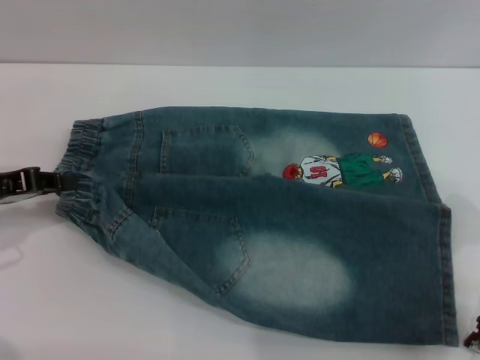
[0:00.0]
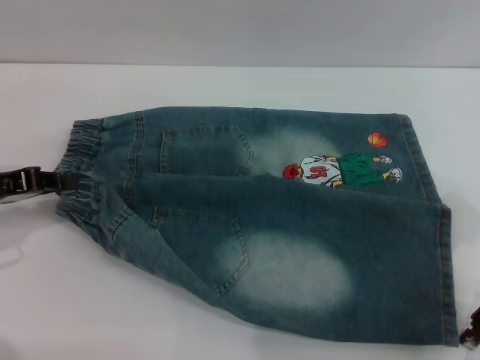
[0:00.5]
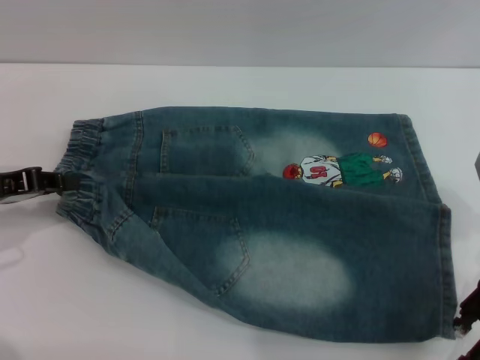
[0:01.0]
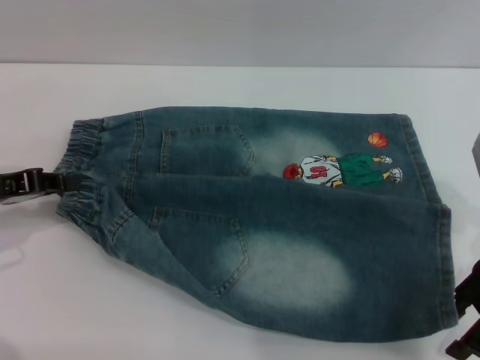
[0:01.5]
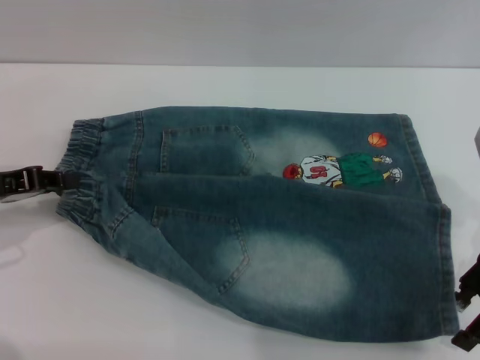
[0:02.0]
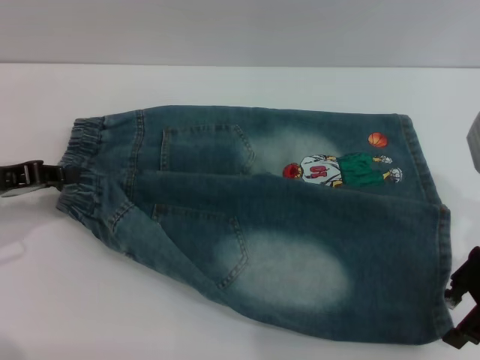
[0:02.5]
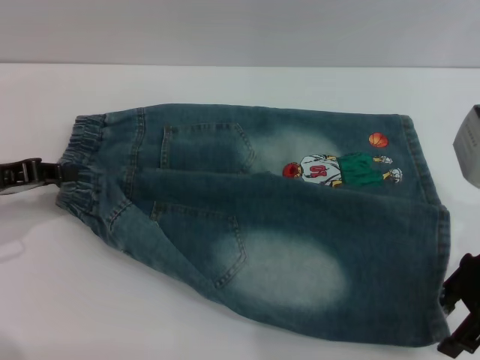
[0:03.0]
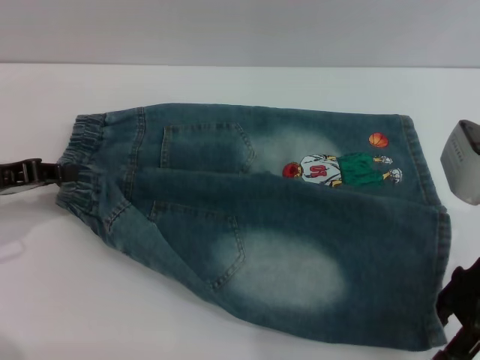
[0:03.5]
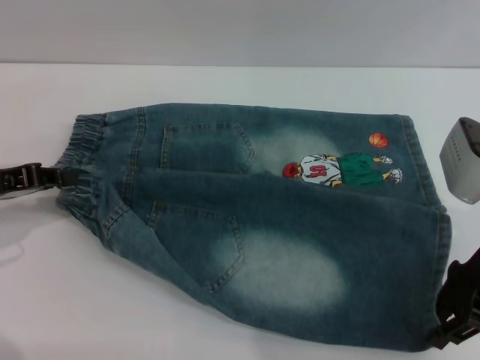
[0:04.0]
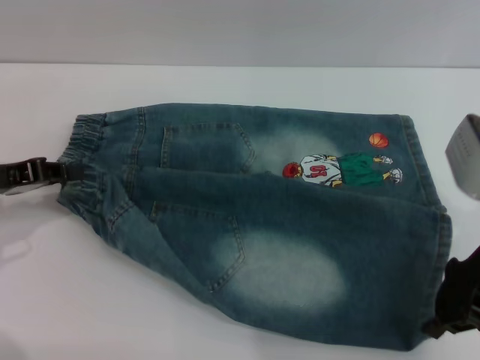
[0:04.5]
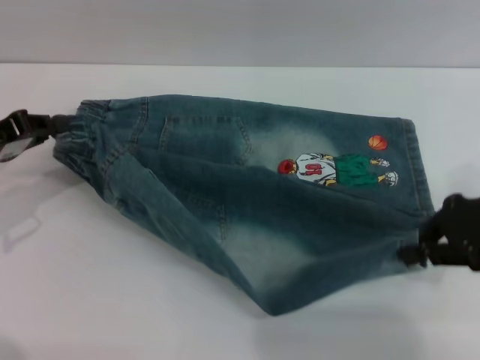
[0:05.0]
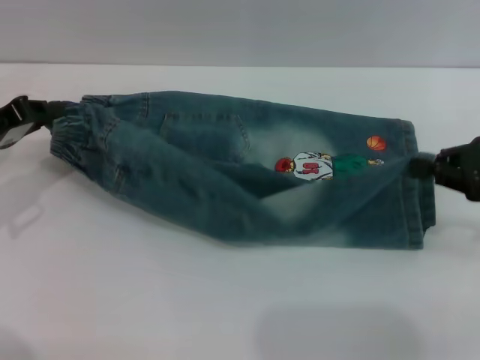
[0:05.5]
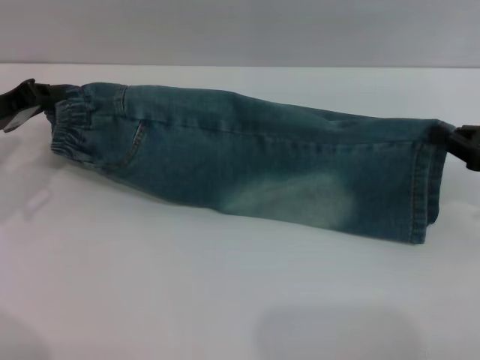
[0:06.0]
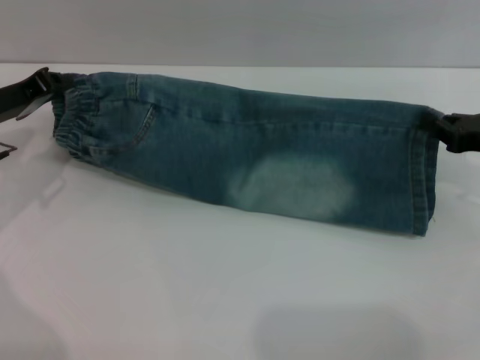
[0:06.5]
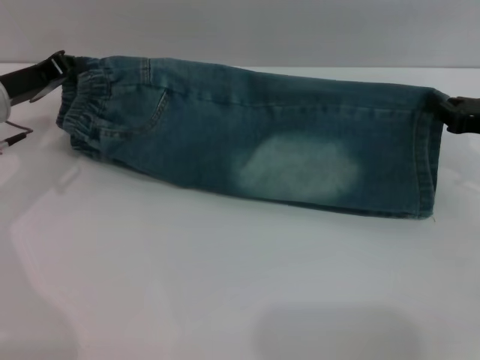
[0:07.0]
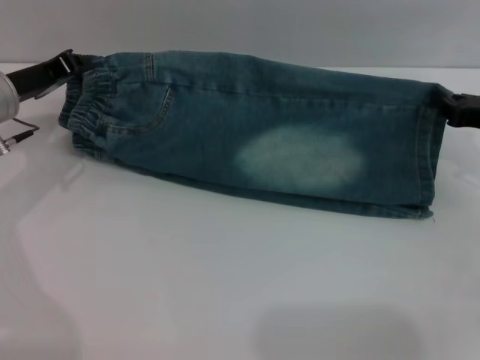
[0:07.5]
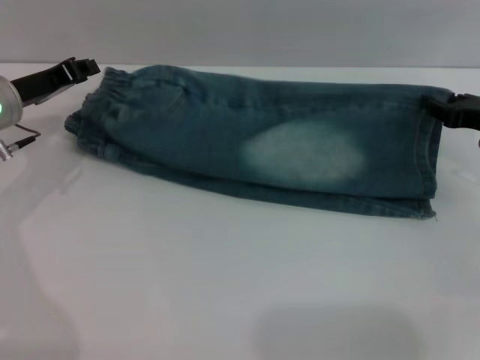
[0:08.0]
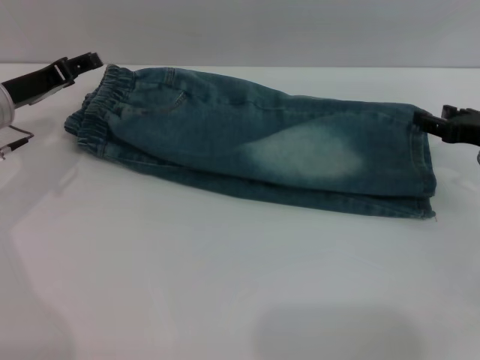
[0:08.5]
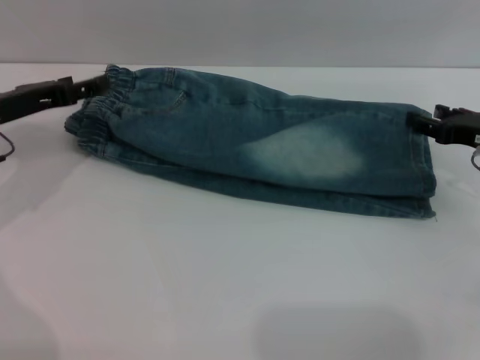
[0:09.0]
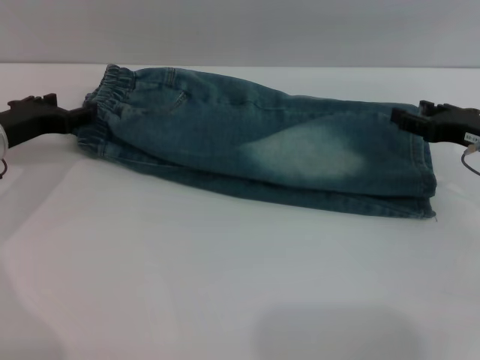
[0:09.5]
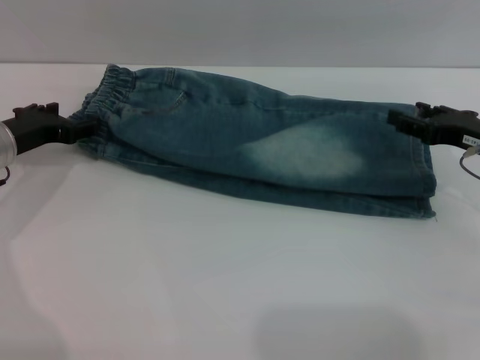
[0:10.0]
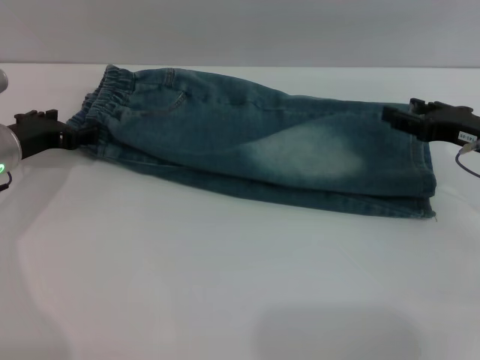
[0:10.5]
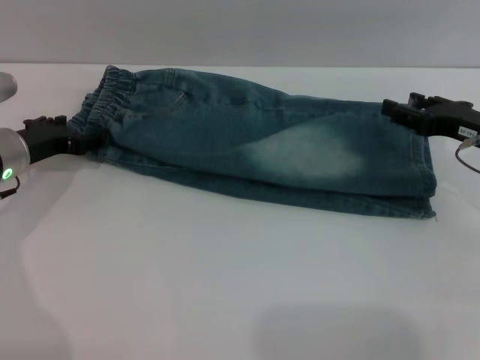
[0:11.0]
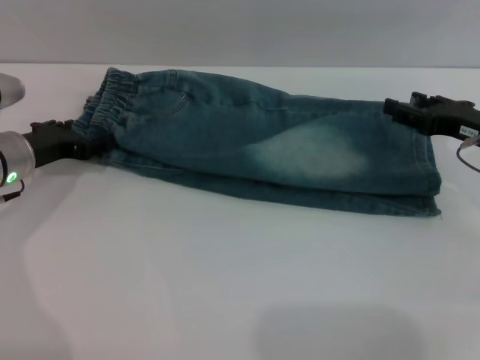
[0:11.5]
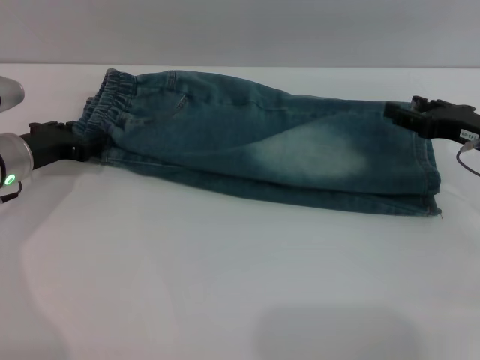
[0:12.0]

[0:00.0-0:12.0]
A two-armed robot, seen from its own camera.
Step, 0:00.0 to 0:08.0: Fold the bottom of the pants upward with both grippers.
0:00.0 to 0:02.0: The grippers stay close to where they were, moving slightly.
0:02.0 to 0:04.0: The right gripper closes.
0:04.0 to 0:06.0: The right gripper shifts some 10 cm to the right, and closes; the left gripper moves approximately 5 cm.
0:06.0 to 0:08.0: The left gripper moves roughly 5 cm. The right gripper moves forward, roughly 5 cm.
0:08.0 to 0:10.0: The left gripper opens. The right gripper opens.
0:10.0 to 0:12.0: There are only small adjustments of the grippers.

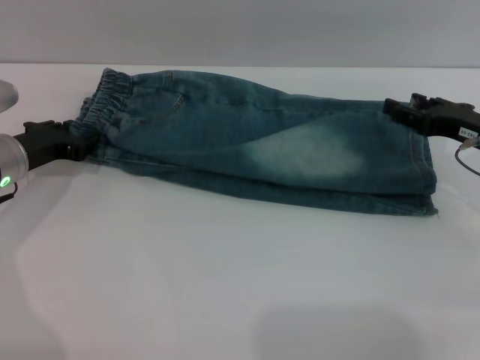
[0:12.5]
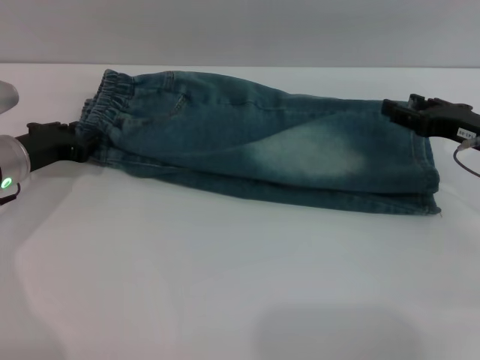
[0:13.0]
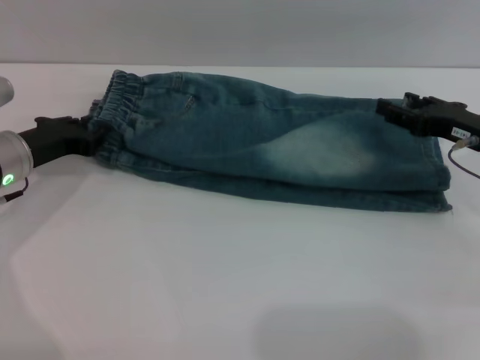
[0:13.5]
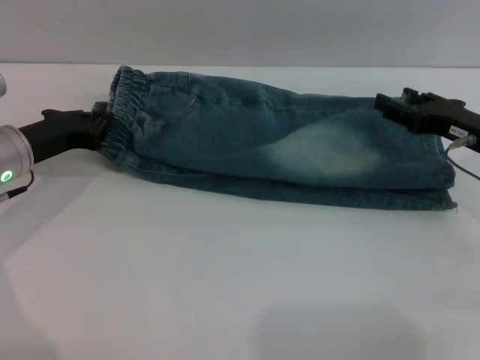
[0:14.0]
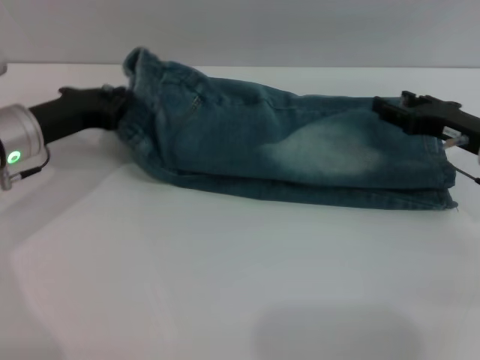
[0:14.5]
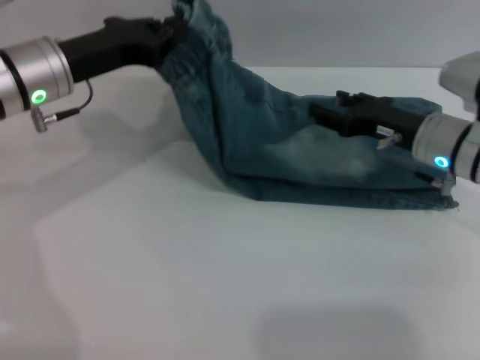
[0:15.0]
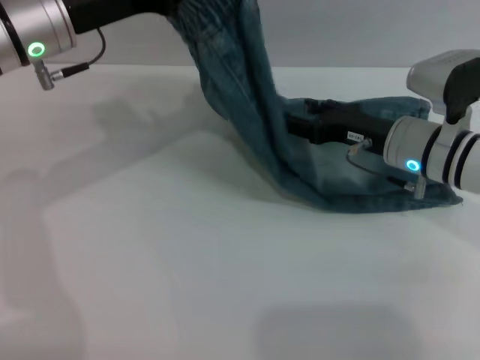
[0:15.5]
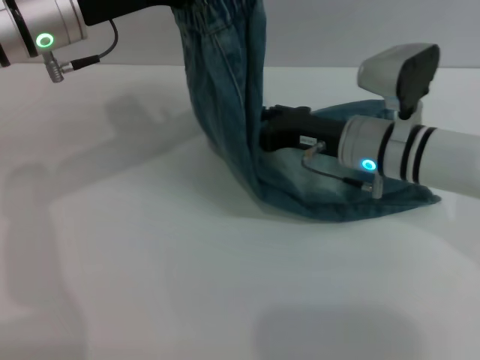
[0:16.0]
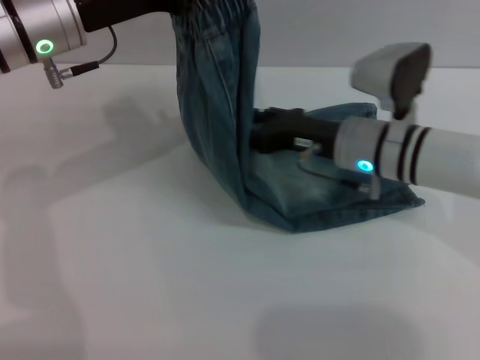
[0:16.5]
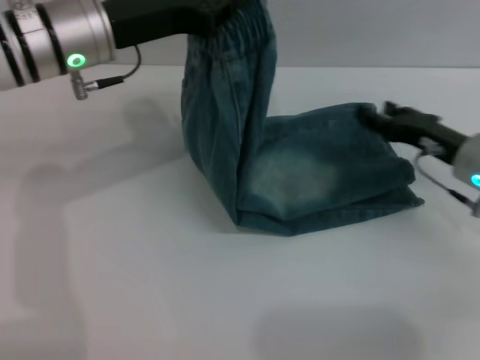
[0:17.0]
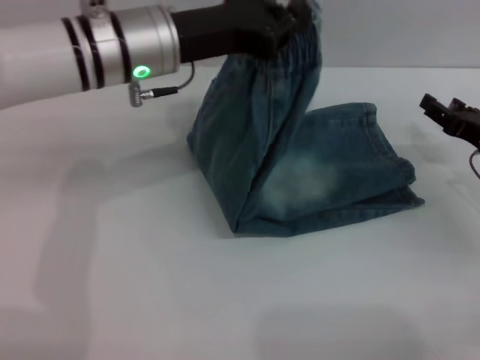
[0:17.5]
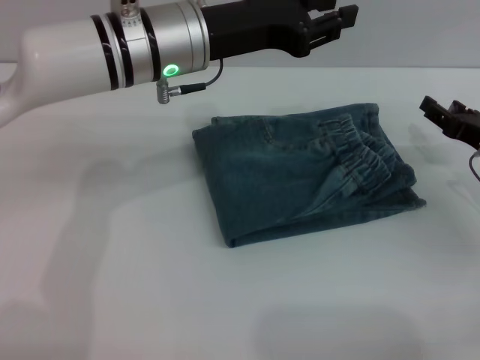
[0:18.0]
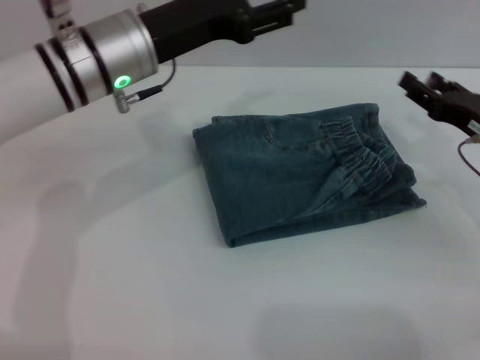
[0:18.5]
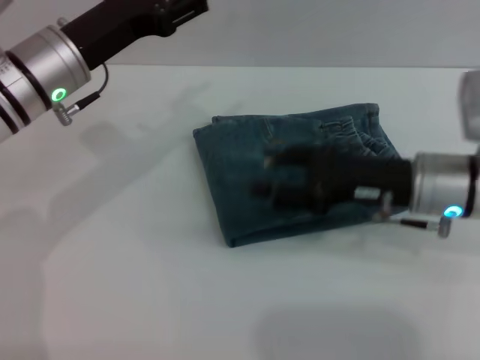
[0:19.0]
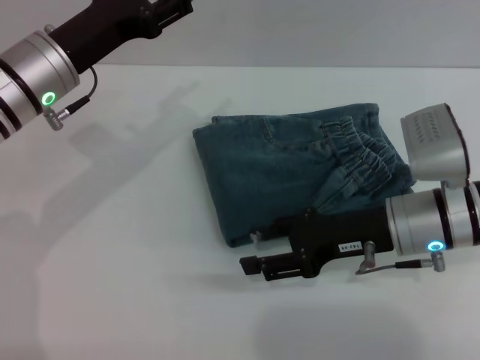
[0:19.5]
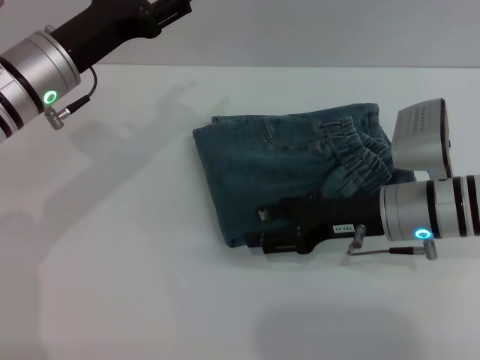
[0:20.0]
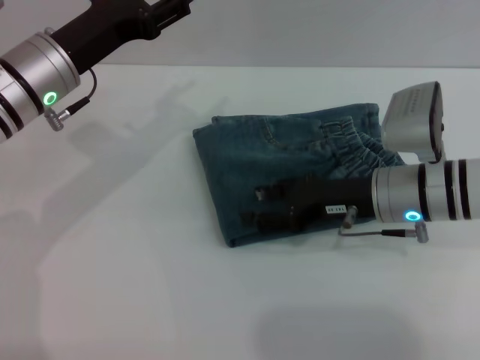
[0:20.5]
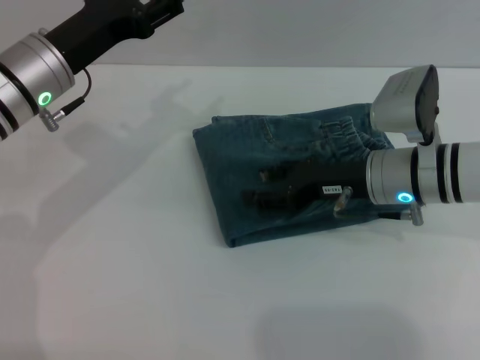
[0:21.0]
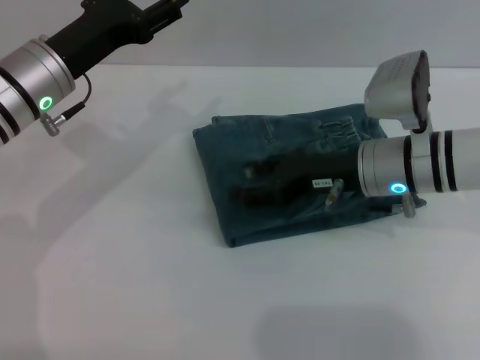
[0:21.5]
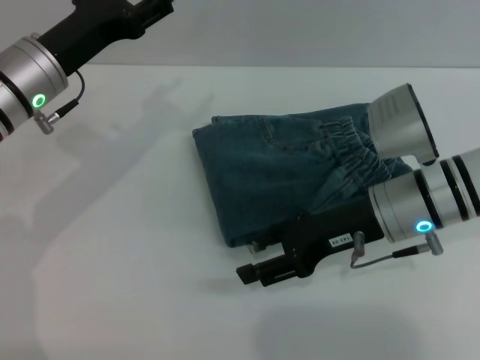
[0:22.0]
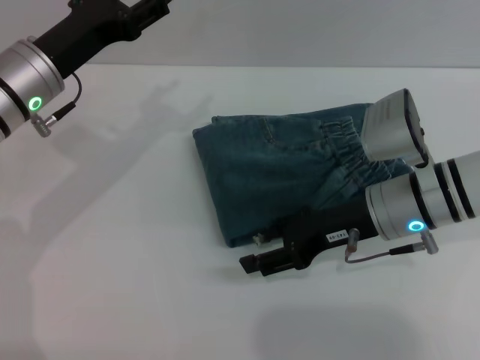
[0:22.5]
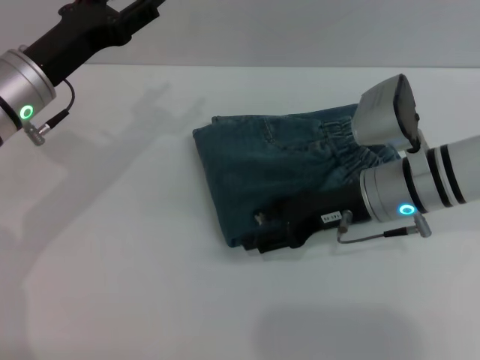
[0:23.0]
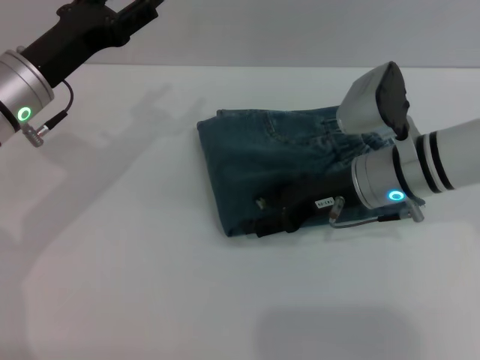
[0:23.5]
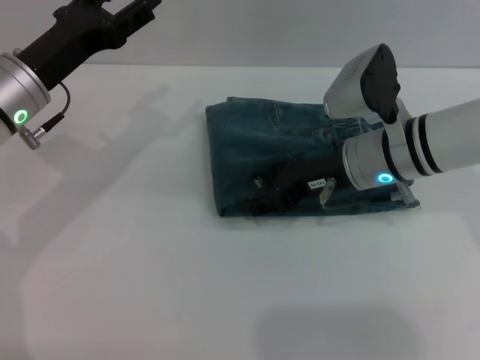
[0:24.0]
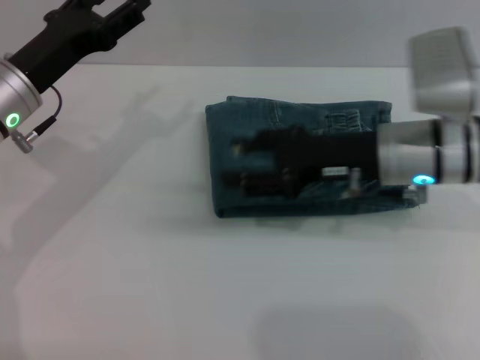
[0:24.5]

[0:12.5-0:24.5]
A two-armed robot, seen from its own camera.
Step, 0:12.5 to 0:18.0: Fold the pants from left to right with the left gripper.
Step, 0:18.5 to 0:24.0: Place the folded trousers onto the center area with the right grippers.
0:12.5 to 0:14.5: The left gripper closes up.
0:14.5 to 0:16.5: The left gripper is displaced upward and to the right by roughly 15 cm. Meanwhile the right gripper heads to the left, covering approximately 15 cm.
0:16.5 to 0:18.5: The left gripper moves to the right, about 5 cm, and opens; the right gripper goes some 15 cm to the right.
0:18.5 to 0:20.5: The right gripper goes approximately 15 cm to the left, while the left gripper heads to the left, covering roughly 5 cm.
0:20.5 to 0:22.5: There are only small adjustments of the grippers.
